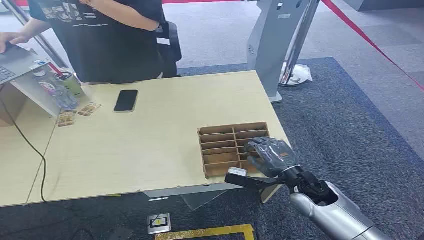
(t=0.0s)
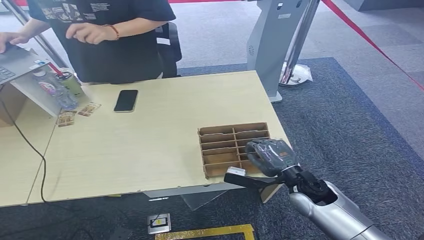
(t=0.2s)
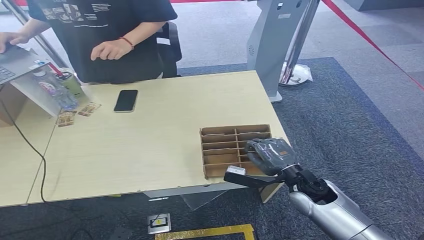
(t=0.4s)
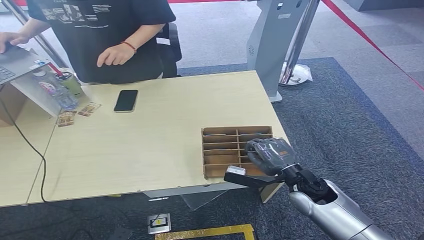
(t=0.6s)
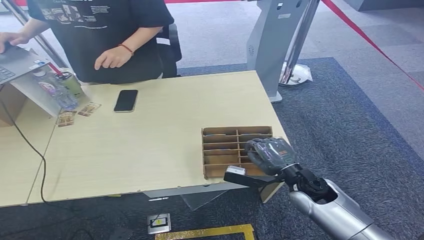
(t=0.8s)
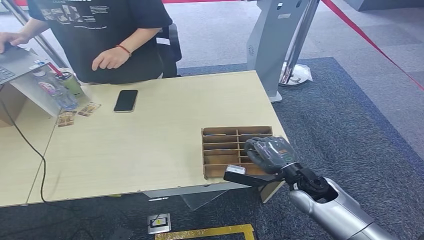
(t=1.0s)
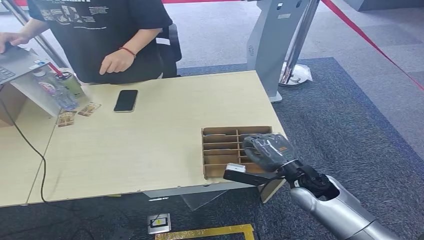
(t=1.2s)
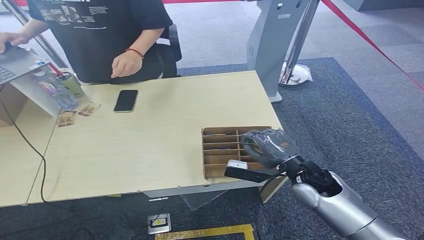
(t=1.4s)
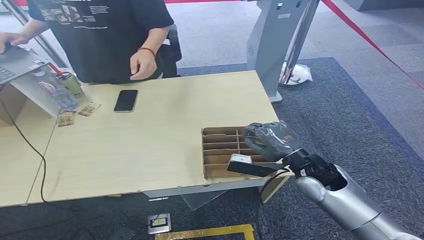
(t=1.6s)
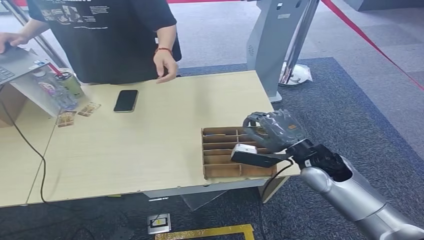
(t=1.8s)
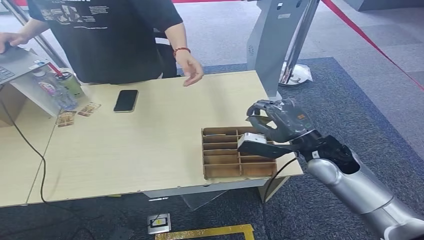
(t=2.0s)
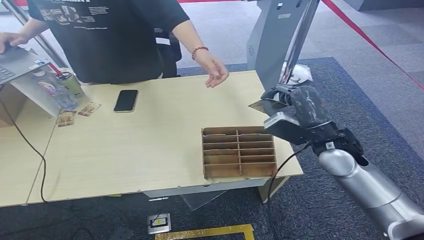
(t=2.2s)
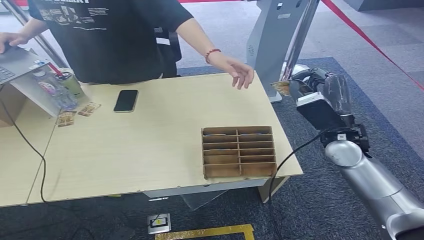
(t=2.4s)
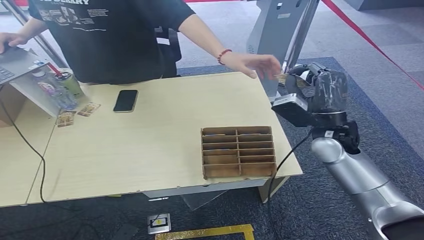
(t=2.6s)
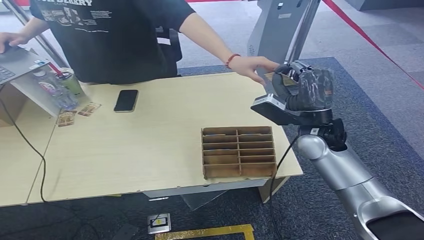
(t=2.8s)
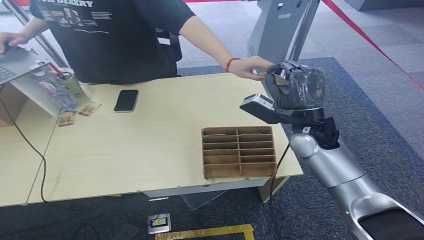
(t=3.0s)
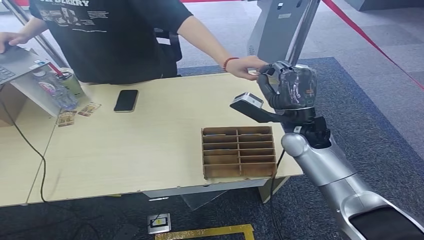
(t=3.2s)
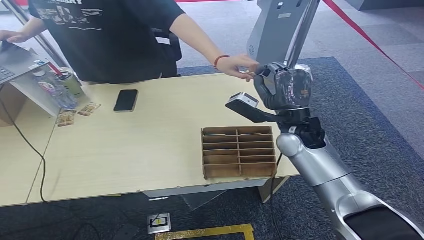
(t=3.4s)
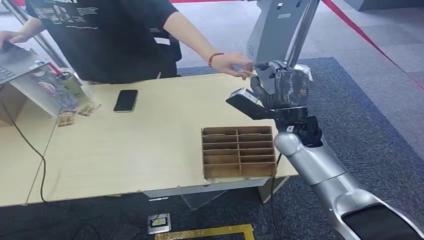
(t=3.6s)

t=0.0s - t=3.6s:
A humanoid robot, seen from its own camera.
Step, t=0.0s - t=1.8s: Pick up the key card from the card box.
Step, t=2.2s - t=3.4s: Hand the key card to the target.
t=1.8s - t=3.6s: The right hand is displaced forward and upward by some 10 cm.
